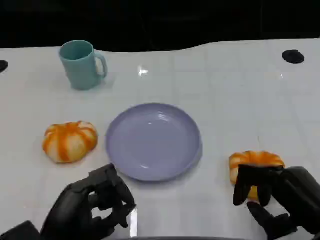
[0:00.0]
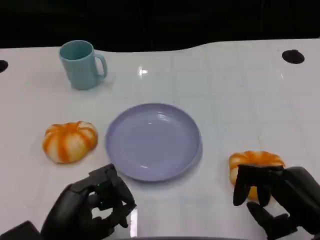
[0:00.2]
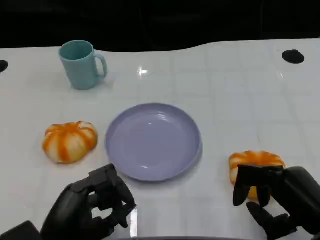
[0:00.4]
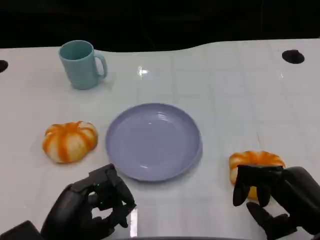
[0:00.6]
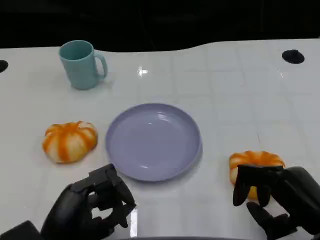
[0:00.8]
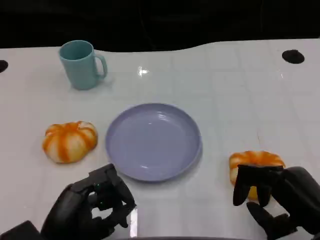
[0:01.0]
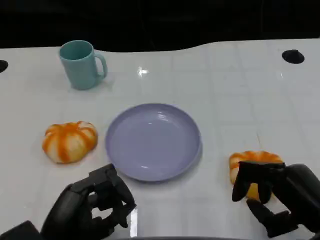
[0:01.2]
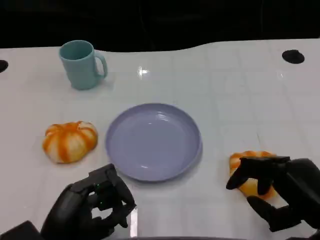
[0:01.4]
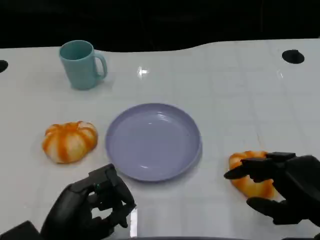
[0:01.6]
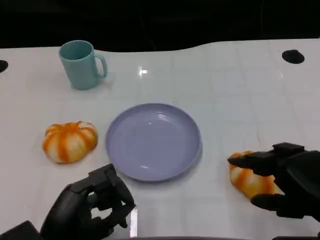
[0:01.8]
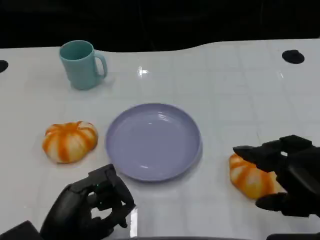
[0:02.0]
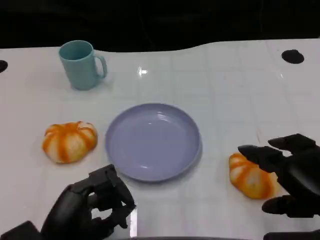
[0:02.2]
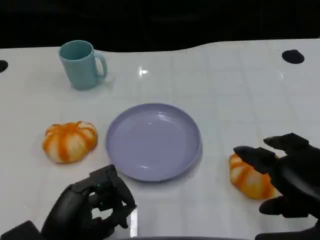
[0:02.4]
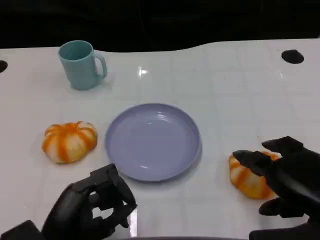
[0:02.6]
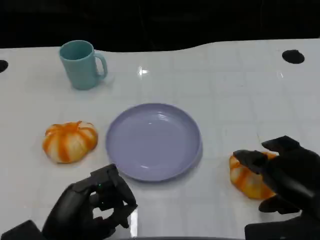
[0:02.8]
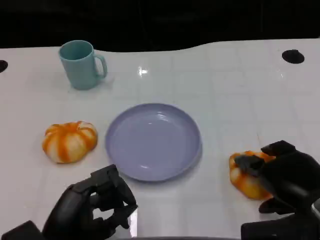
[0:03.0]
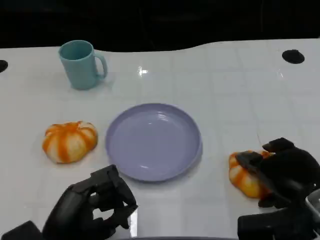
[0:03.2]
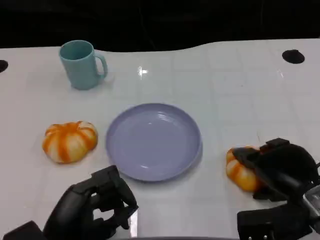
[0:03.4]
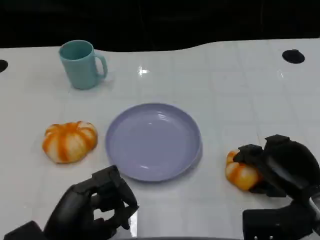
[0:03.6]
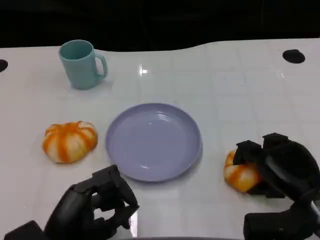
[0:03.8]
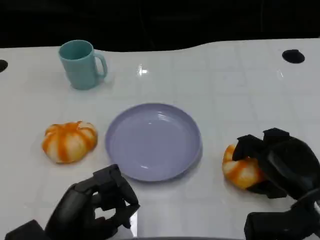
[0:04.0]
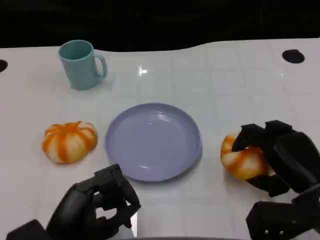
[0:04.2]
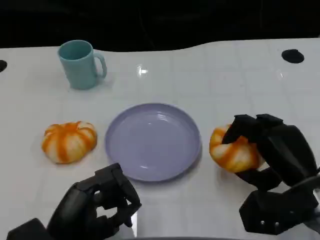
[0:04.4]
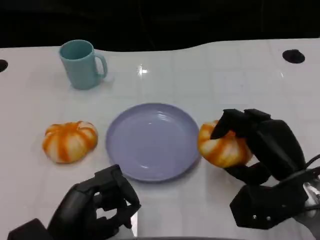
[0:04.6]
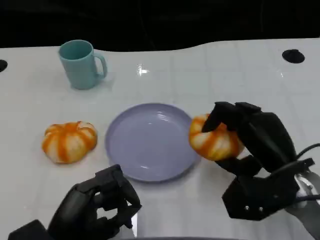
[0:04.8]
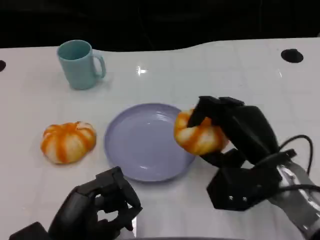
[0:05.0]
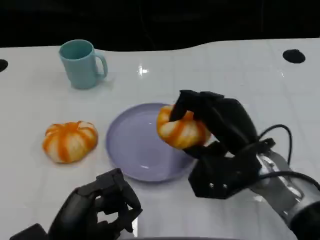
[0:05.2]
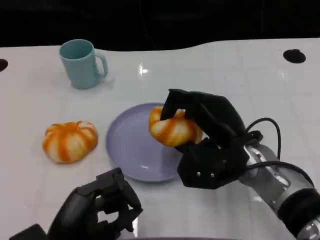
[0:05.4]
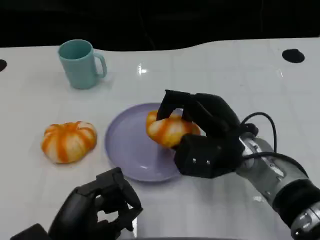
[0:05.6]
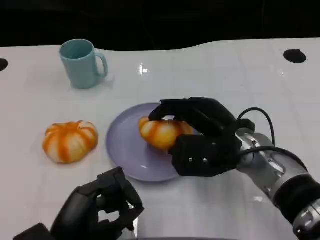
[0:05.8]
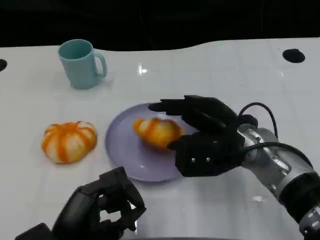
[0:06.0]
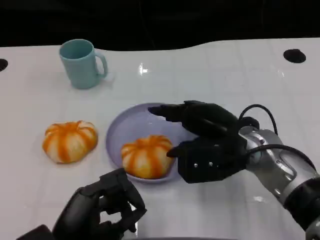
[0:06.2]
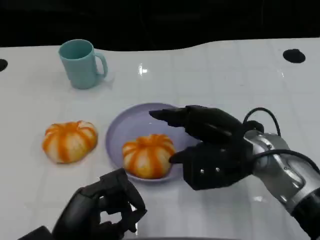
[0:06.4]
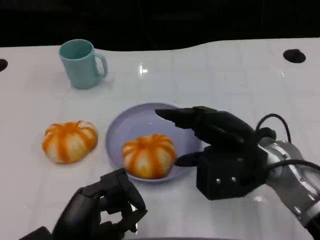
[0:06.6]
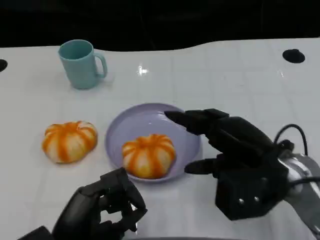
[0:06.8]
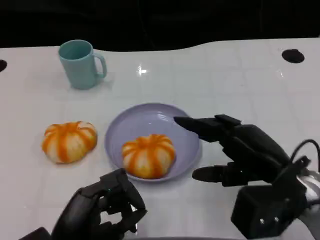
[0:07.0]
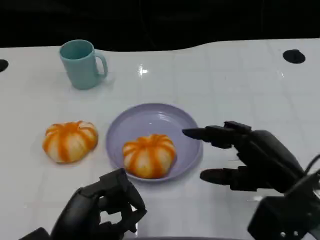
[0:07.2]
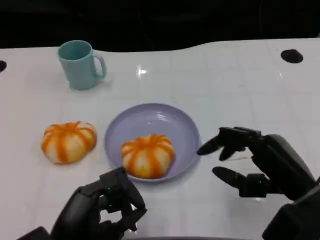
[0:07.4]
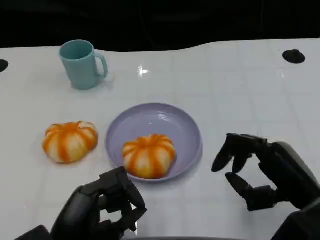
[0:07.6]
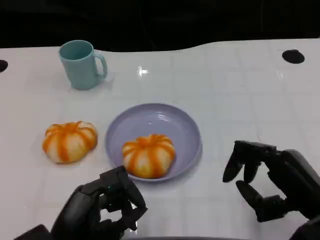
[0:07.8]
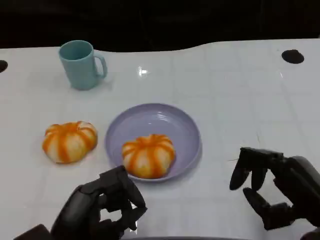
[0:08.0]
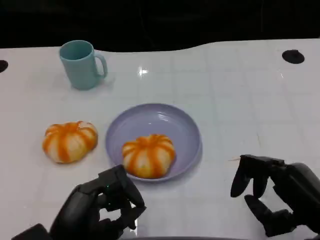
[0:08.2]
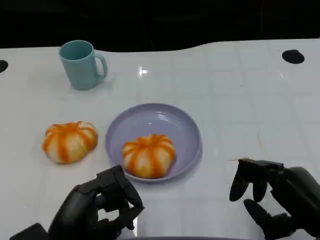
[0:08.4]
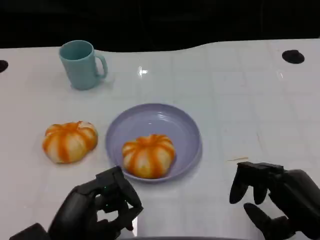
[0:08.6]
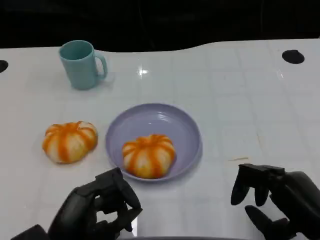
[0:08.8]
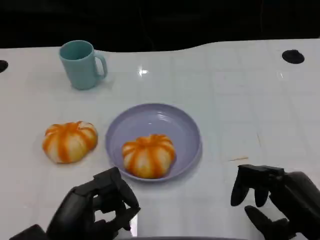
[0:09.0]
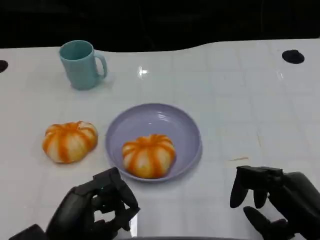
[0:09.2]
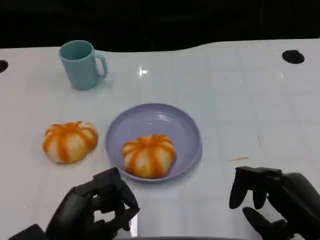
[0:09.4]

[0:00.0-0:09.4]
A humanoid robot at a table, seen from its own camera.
Task of the whole recording: Grasp the bread from the table and place it into the plate.
0:00.0 to 0:01.6: There are only small adjustments of the hands.
0:01.6 to 0:03.2: The right hand heads forward, covering some 5 cm.
0:03.2 to 0:04.8: The right hand moves roughly 5 cm.
0:04.8 to 0:06.2: The right hand shifts roughly 5 cm to the left.
0:06.2 to 0:07.8: The right hand travels backward and to the right by some 15 cm.
0:07.8 to 0:09.4: The hands make only small movements.

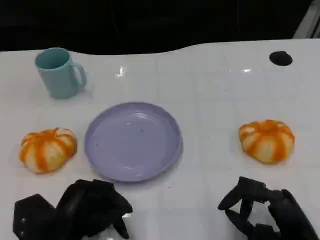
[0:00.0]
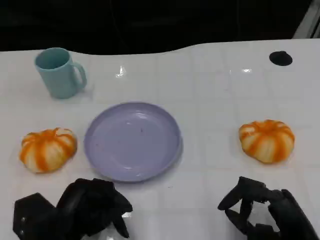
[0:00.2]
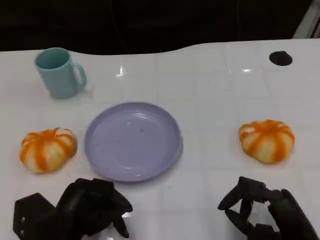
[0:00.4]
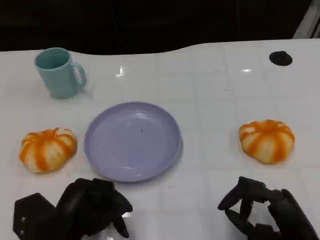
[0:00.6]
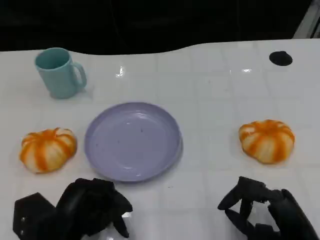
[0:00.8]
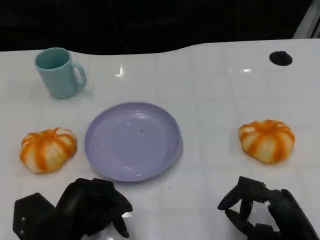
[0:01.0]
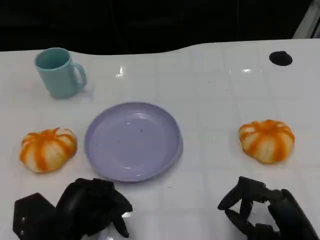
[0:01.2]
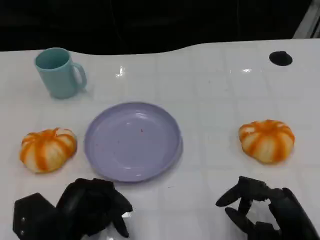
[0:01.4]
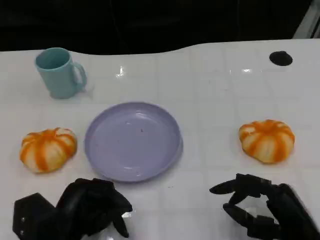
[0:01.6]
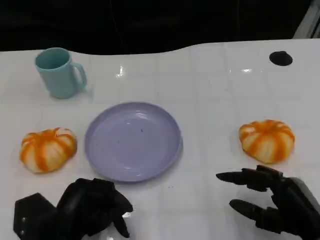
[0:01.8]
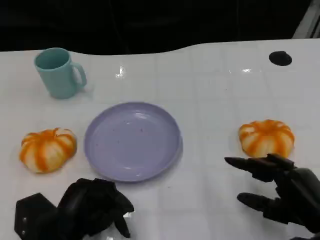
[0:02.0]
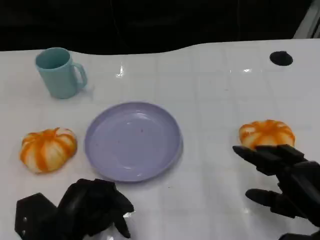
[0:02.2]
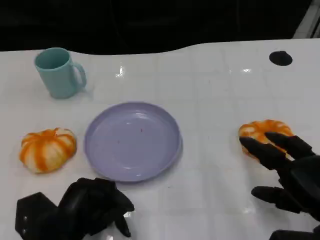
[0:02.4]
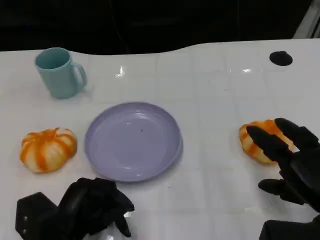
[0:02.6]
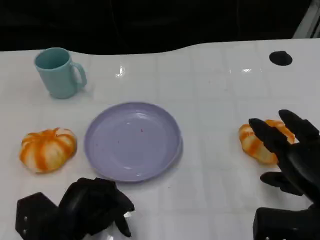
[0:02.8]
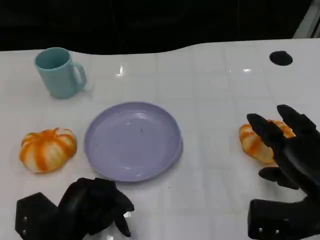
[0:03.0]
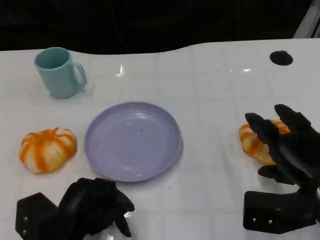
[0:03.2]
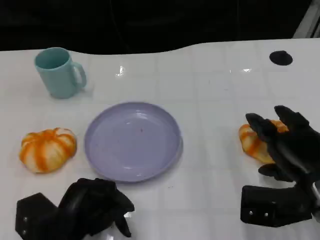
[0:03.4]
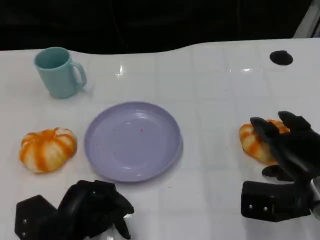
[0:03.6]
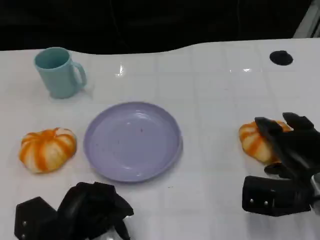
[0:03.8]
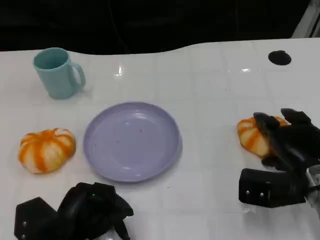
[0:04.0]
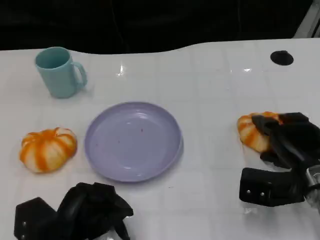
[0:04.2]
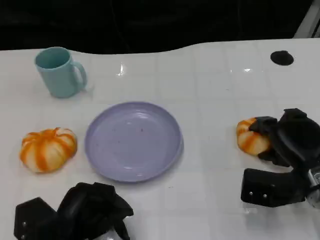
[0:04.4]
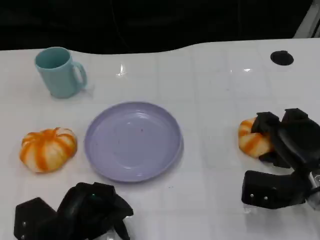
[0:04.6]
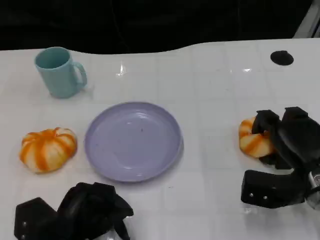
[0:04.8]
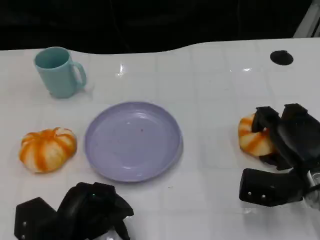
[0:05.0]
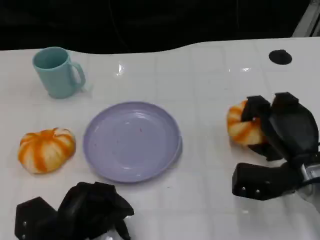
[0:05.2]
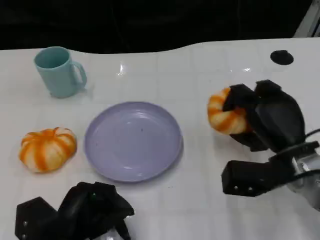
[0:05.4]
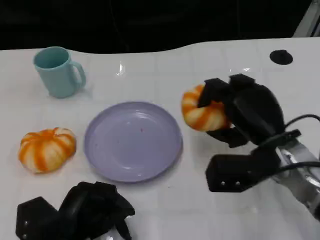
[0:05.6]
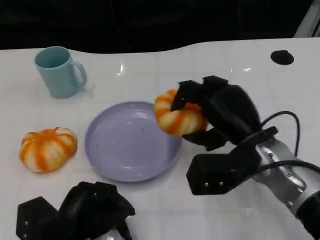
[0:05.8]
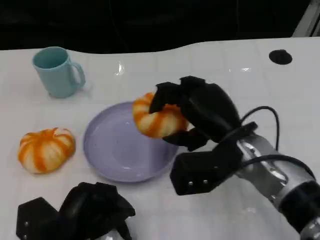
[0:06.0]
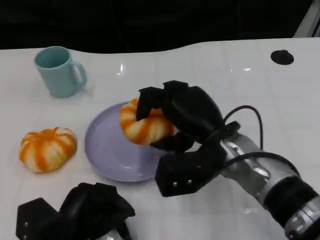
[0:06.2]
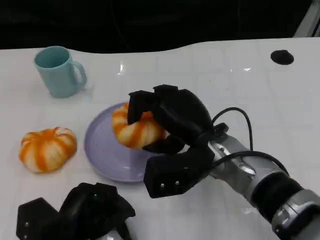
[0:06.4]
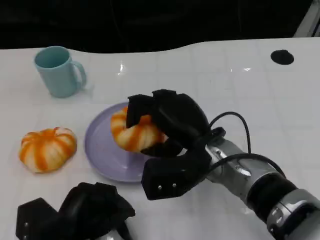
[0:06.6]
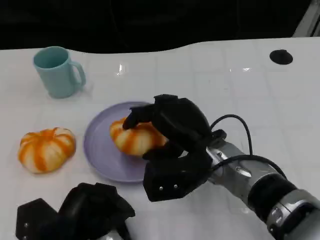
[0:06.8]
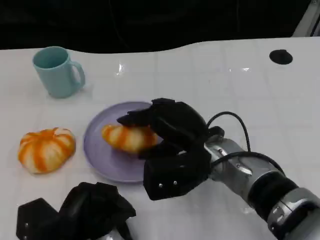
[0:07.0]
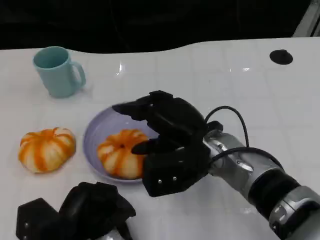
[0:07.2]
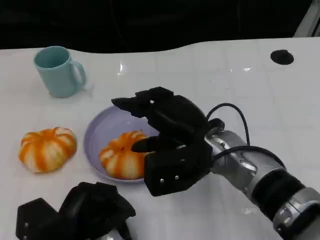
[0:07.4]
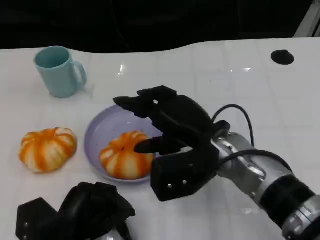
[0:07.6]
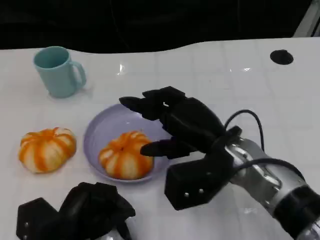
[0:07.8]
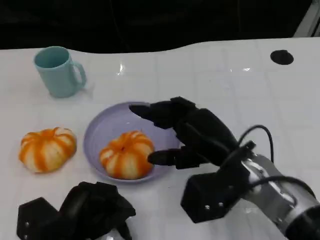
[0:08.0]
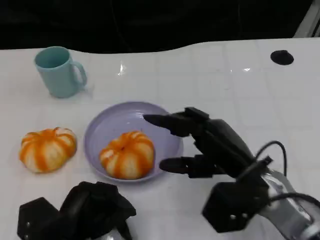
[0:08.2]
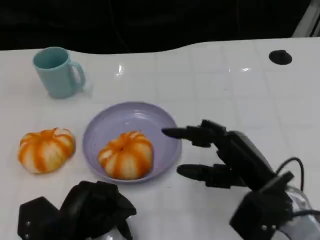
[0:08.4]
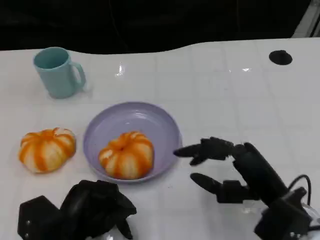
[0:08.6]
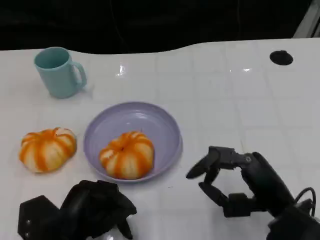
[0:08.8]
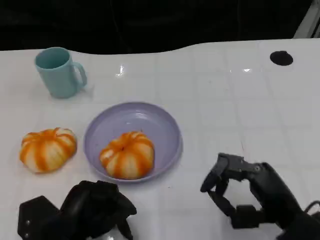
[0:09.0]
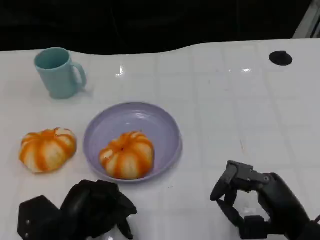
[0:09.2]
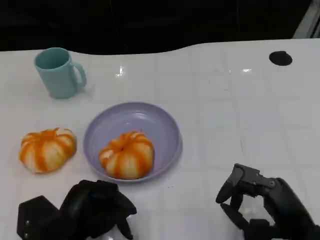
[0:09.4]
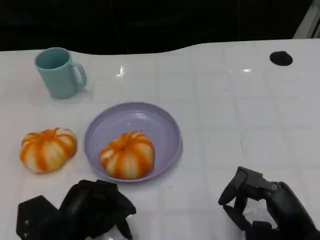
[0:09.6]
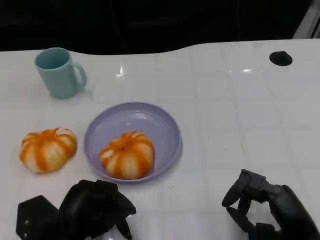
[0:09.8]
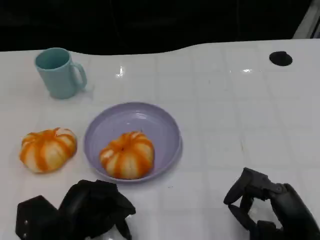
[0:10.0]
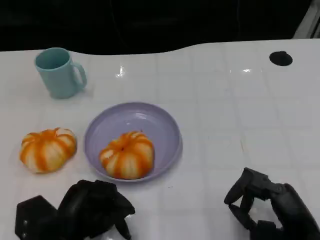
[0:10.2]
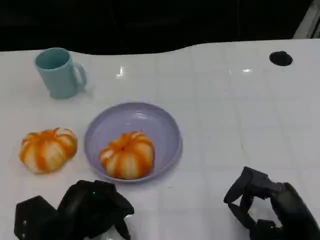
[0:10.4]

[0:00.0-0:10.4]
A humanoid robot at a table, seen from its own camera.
Task of the whole recording: Grasp the bread from the table and place it into the plate.
0:00.0 to 0:01.4: Neither hand changes place.
0:01.4 to 0:03.0: The right hand heads forward and upward, covering some 10 cm.
0:03.0 to 0:04.4: The right hand heads forward, covering about 5 cm.
0:04.4 to 0:06.0: The right hand travels to the left and upward by roughly 15 cm.
0:07.4 to 0:09.0: The right hand travels to the right, backward and downward by about 15 cm.
0:09.0 to 0:10.4: The hands move only a little.

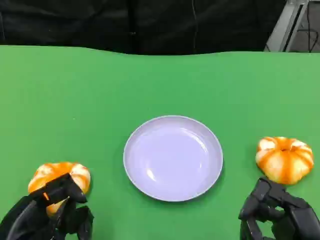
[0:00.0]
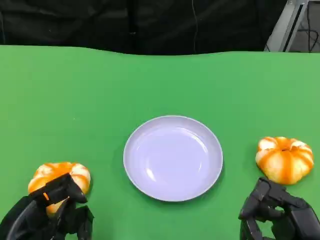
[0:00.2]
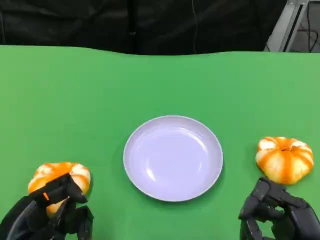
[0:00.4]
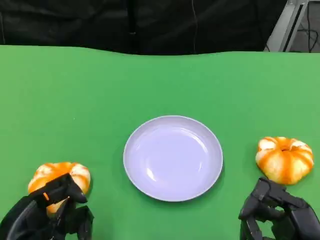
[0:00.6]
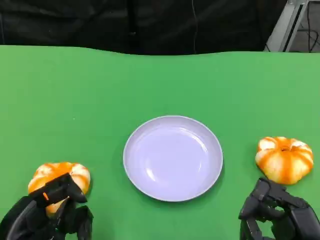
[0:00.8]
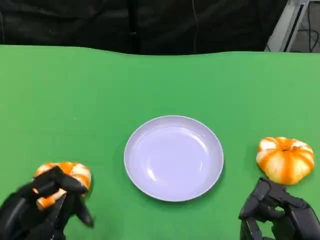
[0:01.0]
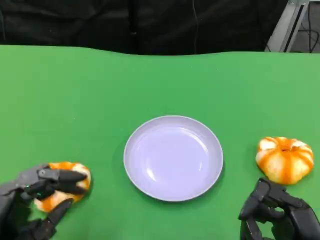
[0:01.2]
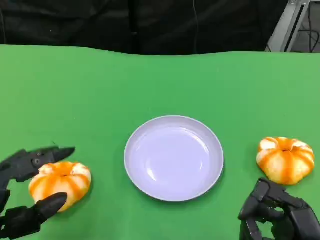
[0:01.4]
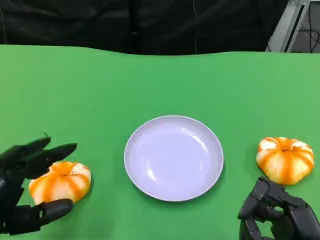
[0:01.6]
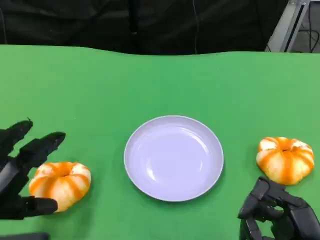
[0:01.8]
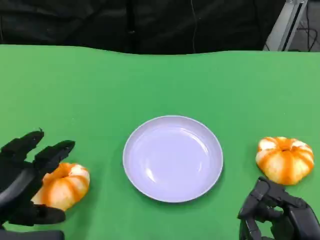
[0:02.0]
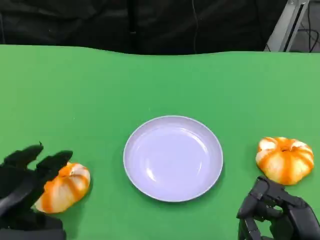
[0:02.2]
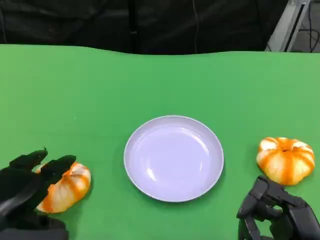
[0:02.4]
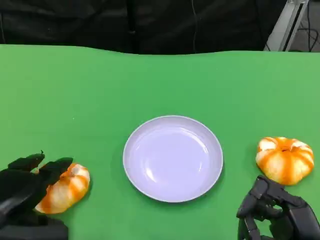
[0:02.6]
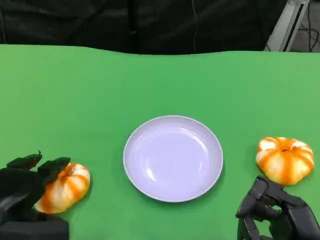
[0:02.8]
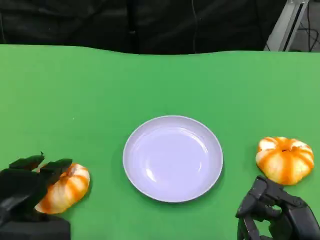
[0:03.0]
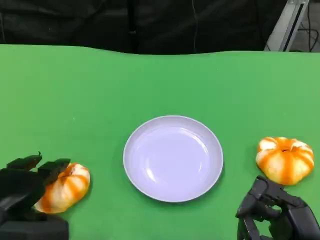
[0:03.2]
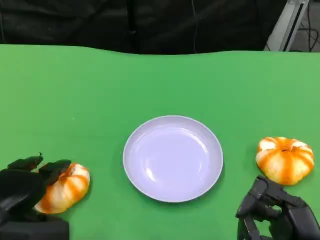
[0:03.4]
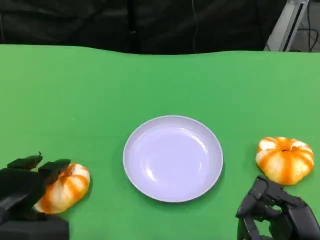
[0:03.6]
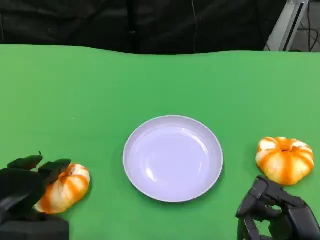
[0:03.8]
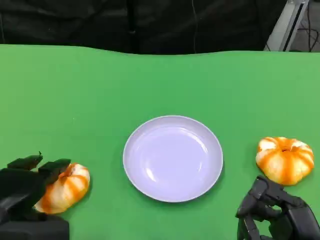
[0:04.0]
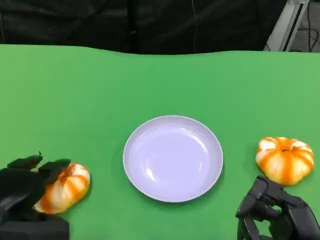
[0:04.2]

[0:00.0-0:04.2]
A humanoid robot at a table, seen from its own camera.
Task of the whole recording: Grasp the bread from the table and place it into the plate.
0:01.4 to 0:02.8: The left hand shifts some 5 cm forward.
0:02.8 to 0:04.2: Both hands stay about where they are.
